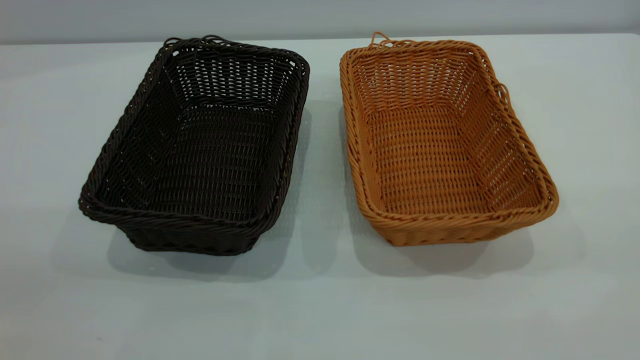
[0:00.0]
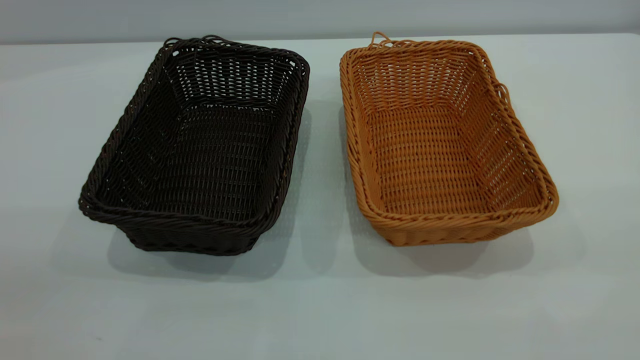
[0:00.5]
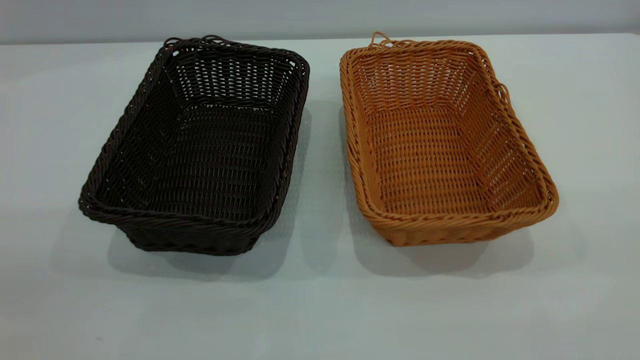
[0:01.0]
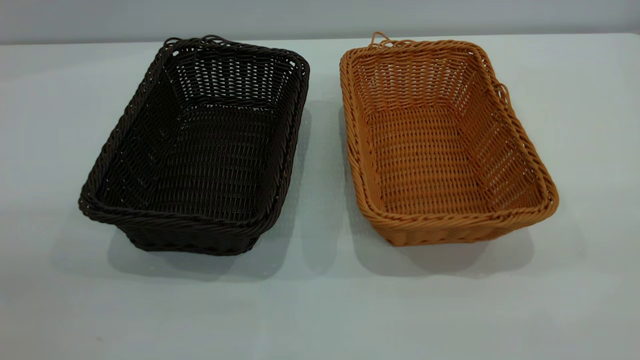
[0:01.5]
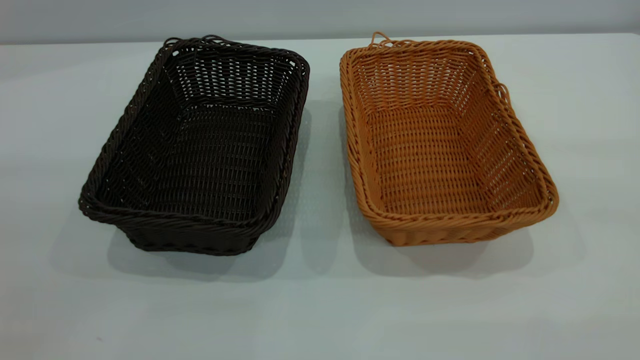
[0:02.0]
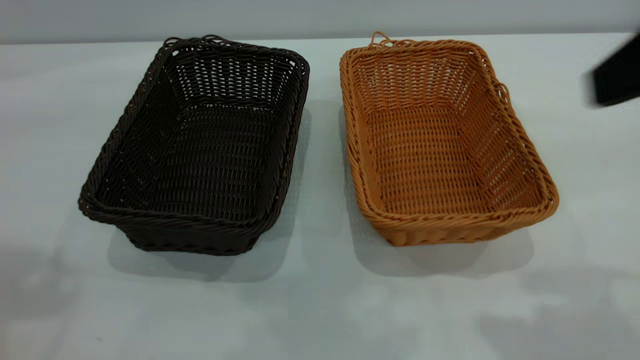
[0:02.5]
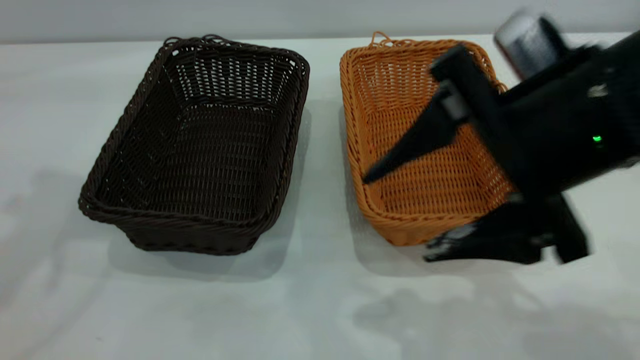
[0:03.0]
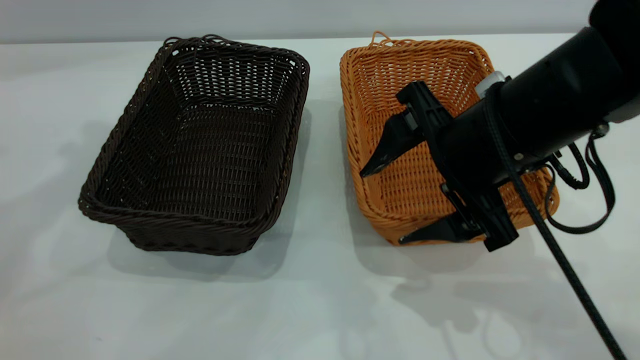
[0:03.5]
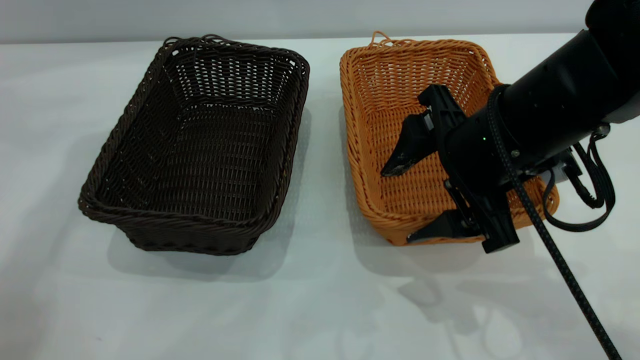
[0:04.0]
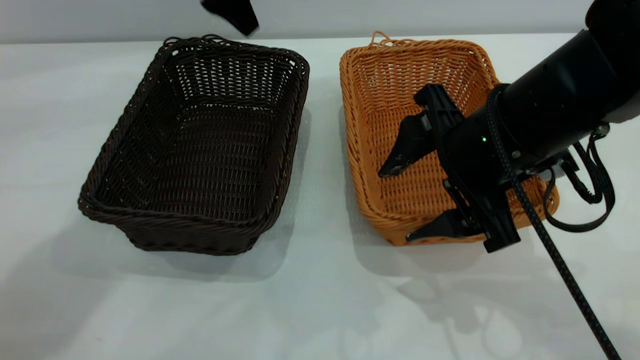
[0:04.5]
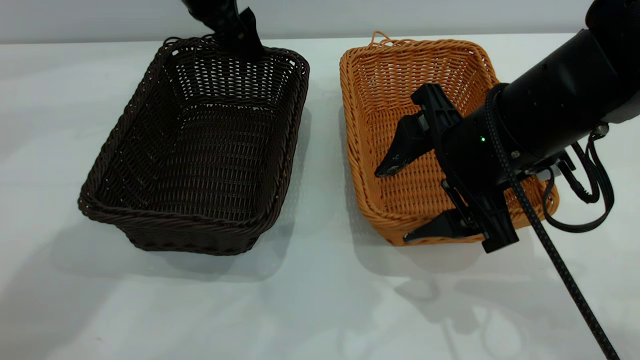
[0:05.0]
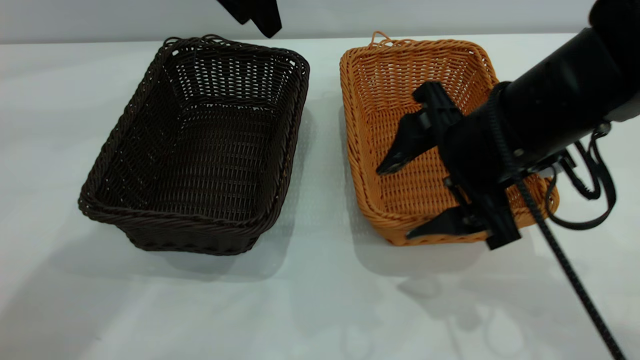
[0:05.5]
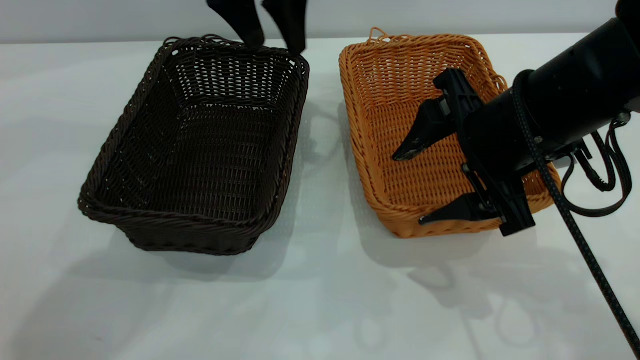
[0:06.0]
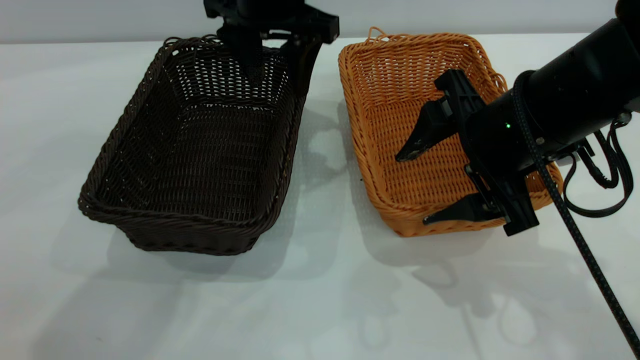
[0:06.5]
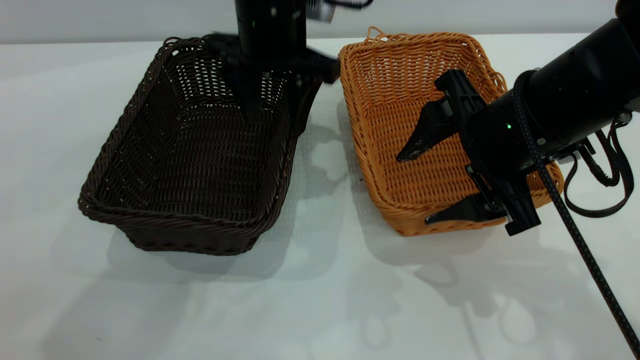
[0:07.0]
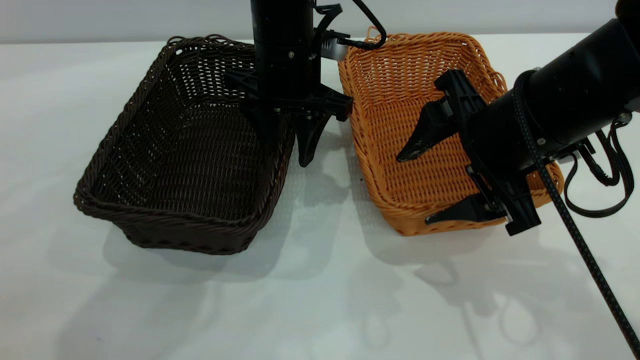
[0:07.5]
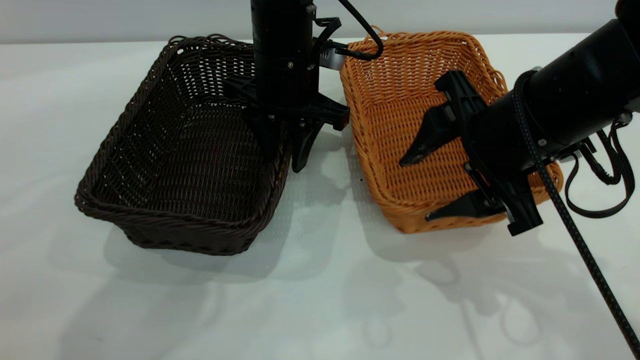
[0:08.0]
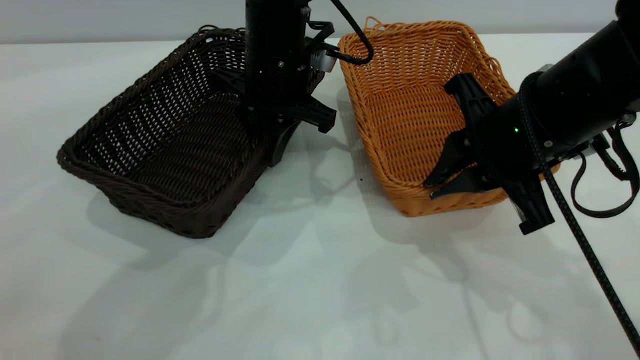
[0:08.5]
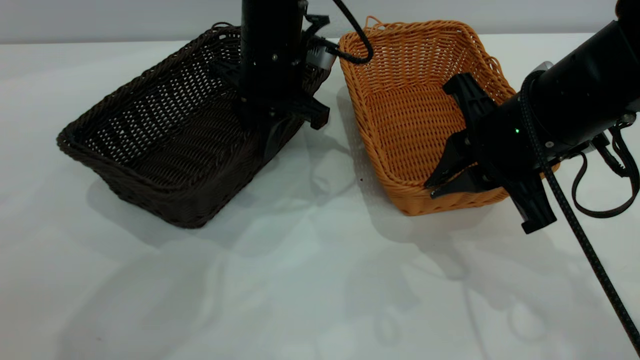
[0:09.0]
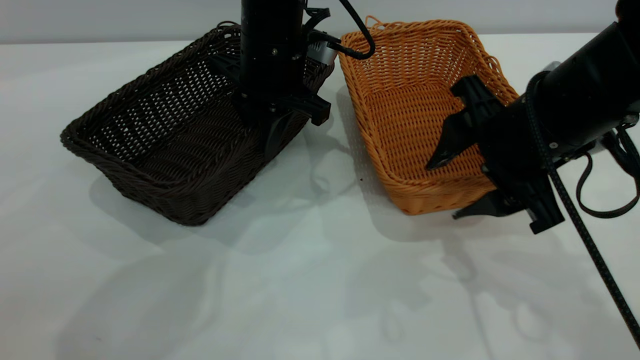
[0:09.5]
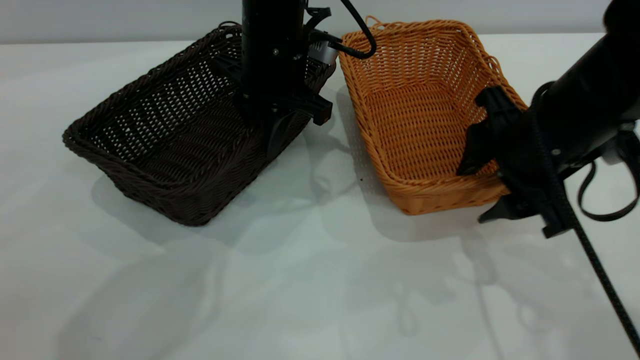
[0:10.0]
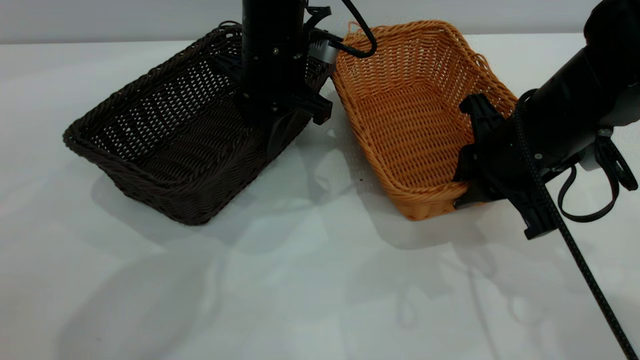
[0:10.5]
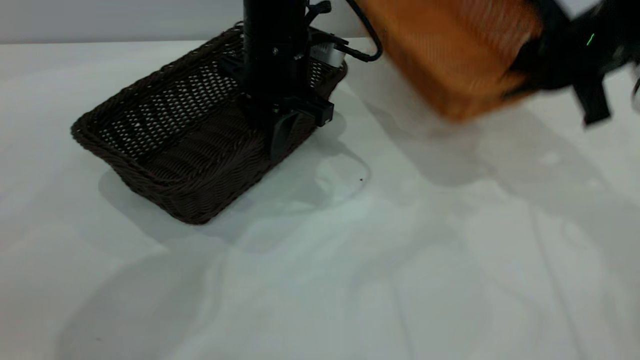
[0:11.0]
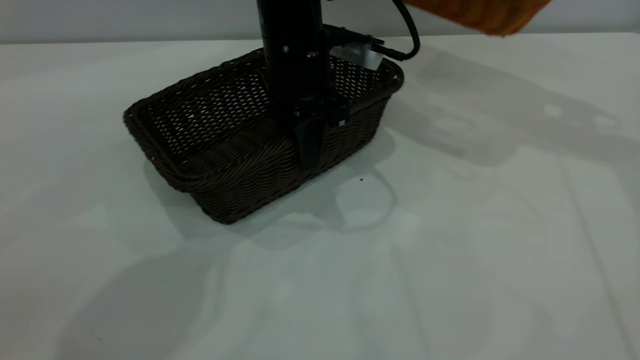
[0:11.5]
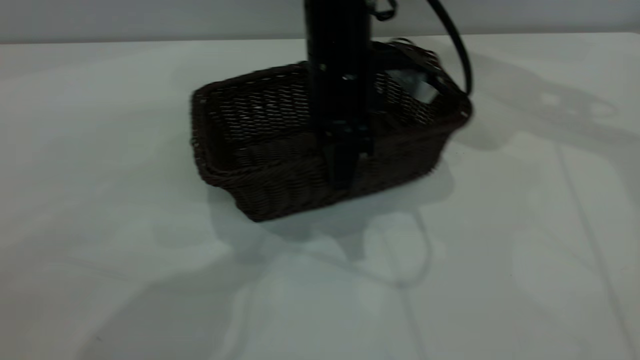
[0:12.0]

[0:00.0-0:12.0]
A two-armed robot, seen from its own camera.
Task of the whole recording: the left gripper grasp the black basket and place it in the center of the table, the right gripper grasp the brown basket and place it inside the black one.
Step, 0:00.0 to 0:10.5: Pick up the light basket with the right gripper.
0:02.0 to 0:04.0: The right gripper shifts roughly 30 cm downward, forward and to the left. Meanwhile the left gripper moves forward, approximately 40 cm.
0:04.0 to 0:06.0: The left gripper shifts roughly 15 cm to the right and downward.
0:06.0 to 0:08.0: The left gripper goes about 10 cm downward, and closes up.
0:08.0 to 0:10.0: The right gripper closes, then reopens. Meanwhile the left gripper closes.
0:10.0 to 0:12.0: The right gripper goes about 25 cm upward, forward and to the right, and closes its fingers. The left gripper is displaced to the right and backward by roughly 10 cm.

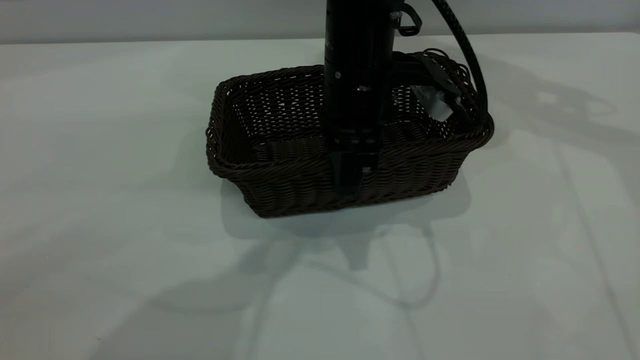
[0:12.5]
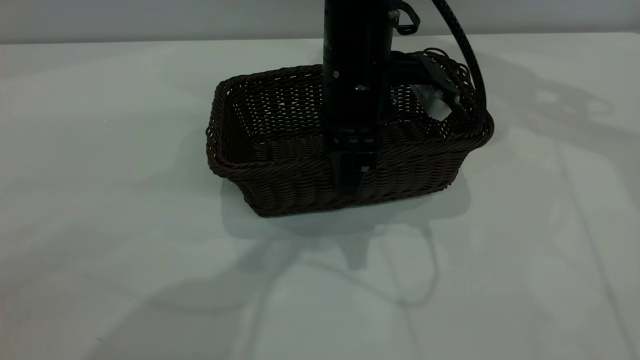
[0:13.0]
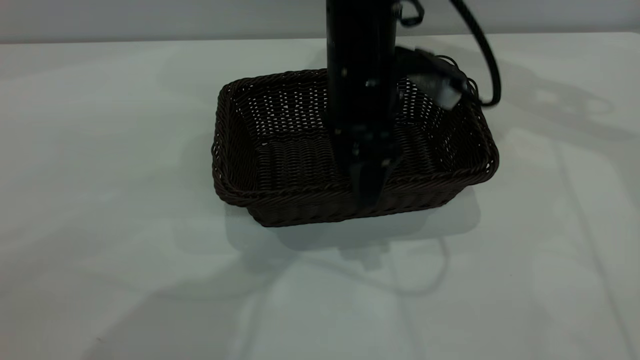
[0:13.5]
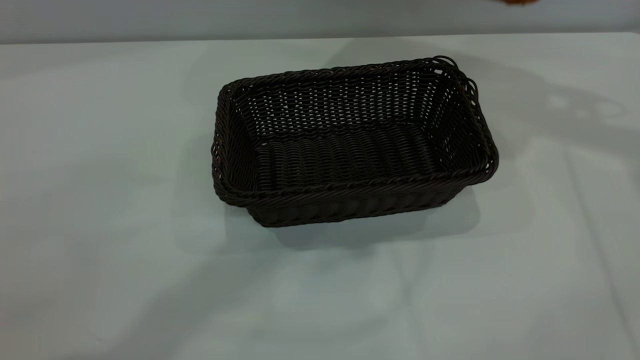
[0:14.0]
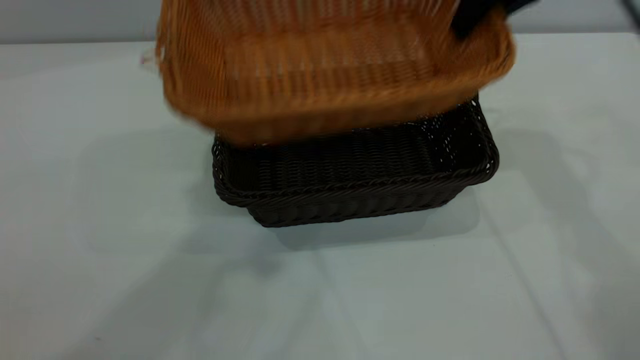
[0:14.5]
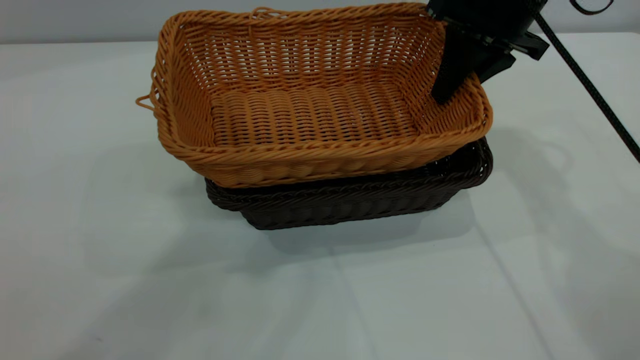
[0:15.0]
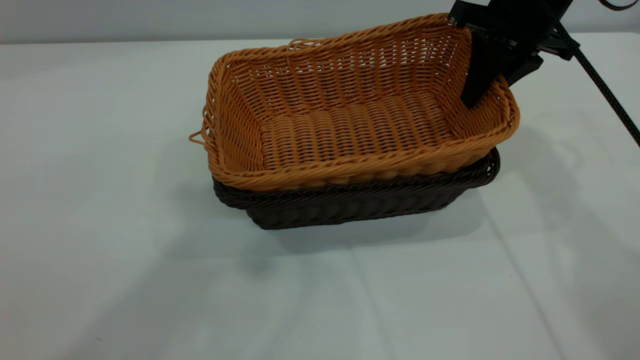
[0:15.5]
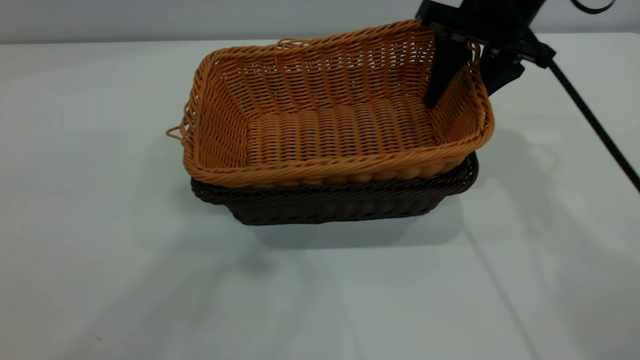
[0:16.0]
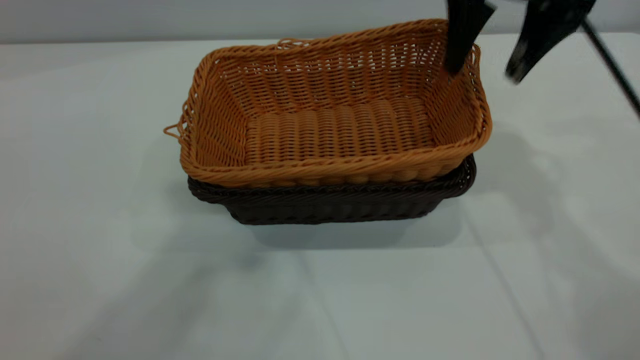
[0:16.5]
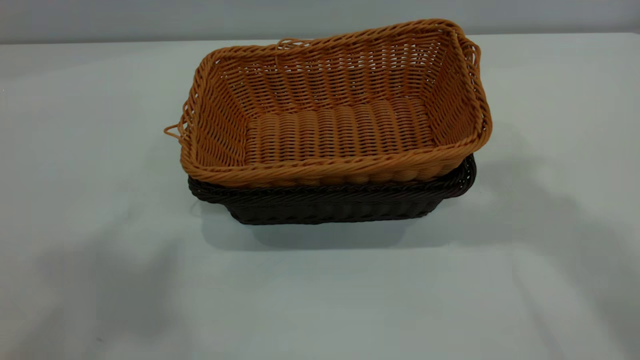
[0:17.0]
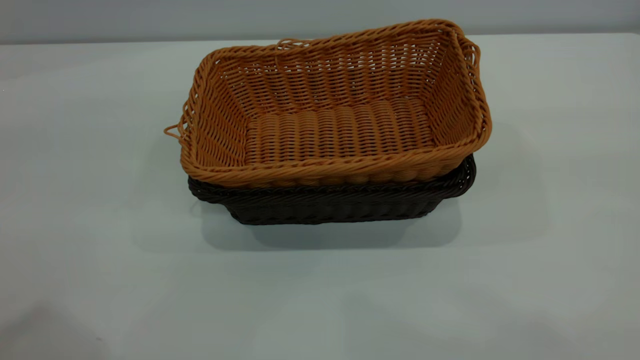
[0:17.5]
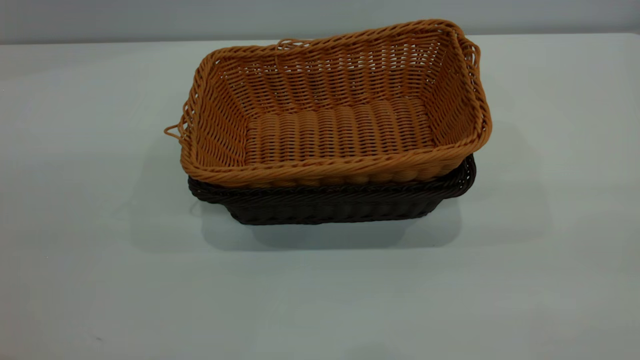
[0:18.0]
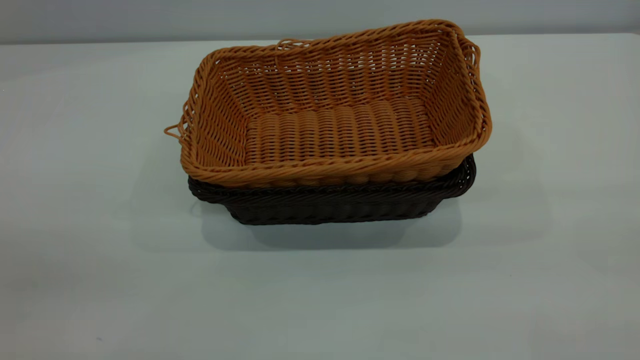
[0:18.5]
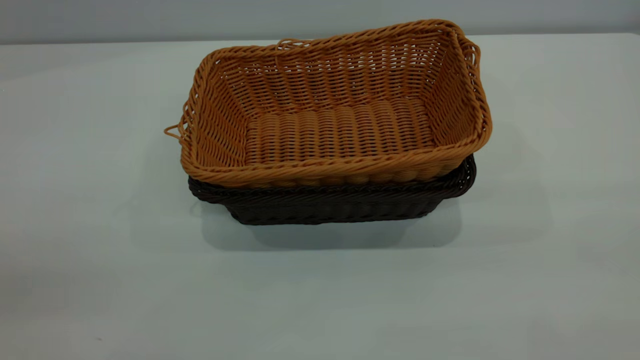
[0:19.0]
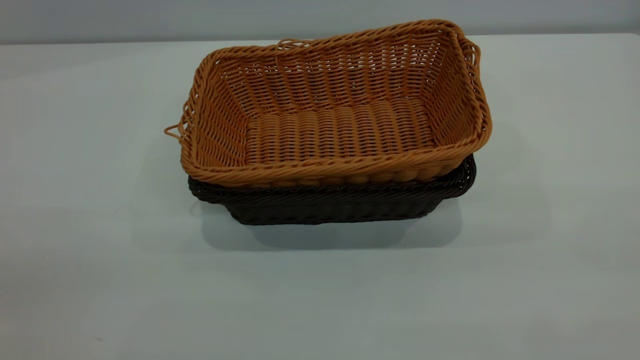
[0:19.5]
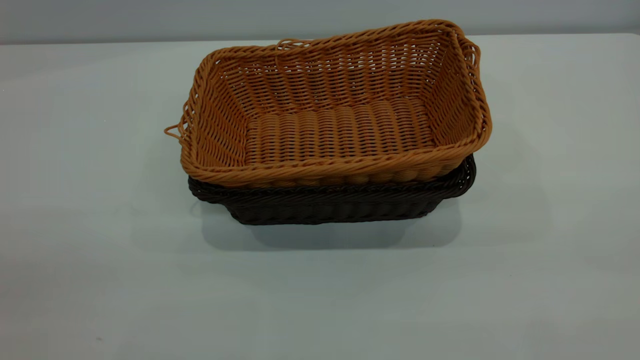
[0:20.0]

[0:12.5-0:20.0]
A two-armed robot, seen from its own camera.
Task of the whole recording: the left gripper grasp the black basket and place it in the center of the table, the right gripper grasp the brown basket and place it inside the black one.
Step, 0:14.0 to 0:16.5: Place the light basket on the dark basket.
0:12.5 to 0:14.5: The left gripper moves upward, roughly 40 cm, and opens up; the right gripper goes some 15 cm to the left and downward.
0:14.5 to 0:16.5: The right gripper opens.
0:16.5 to 0:18.0: The right gripper is displaced backward by some 40 cm.
